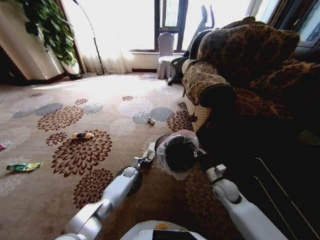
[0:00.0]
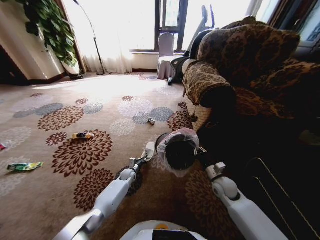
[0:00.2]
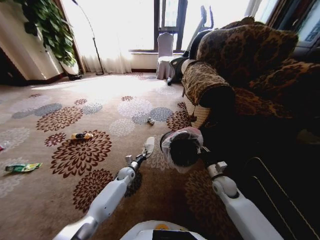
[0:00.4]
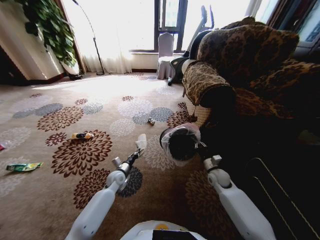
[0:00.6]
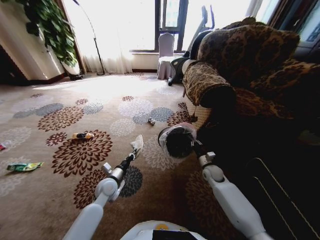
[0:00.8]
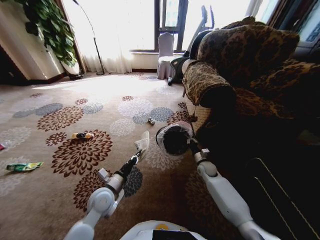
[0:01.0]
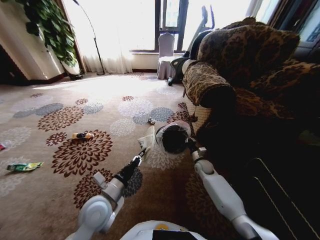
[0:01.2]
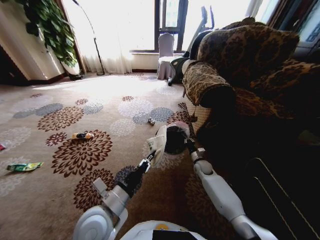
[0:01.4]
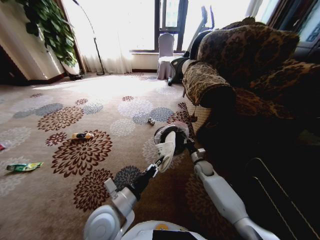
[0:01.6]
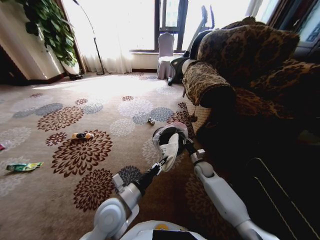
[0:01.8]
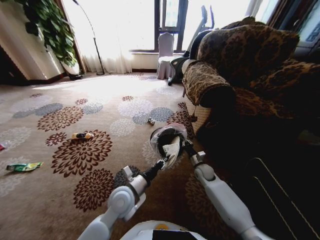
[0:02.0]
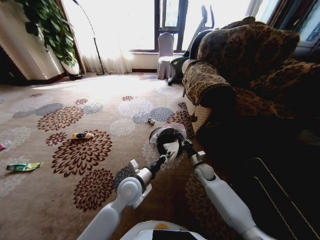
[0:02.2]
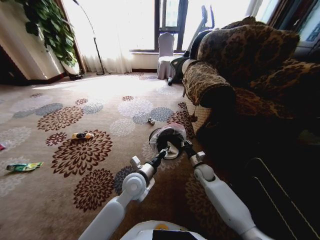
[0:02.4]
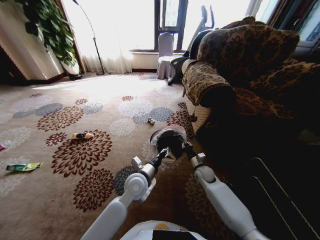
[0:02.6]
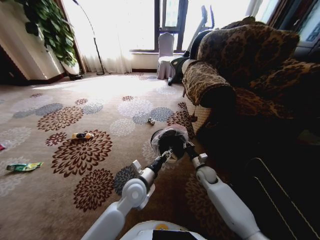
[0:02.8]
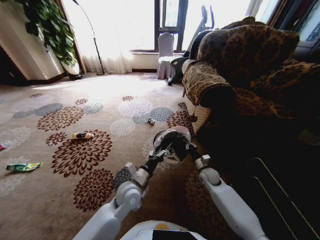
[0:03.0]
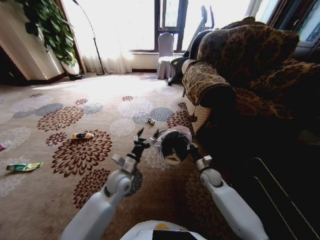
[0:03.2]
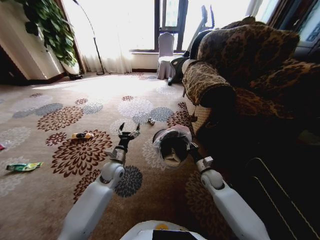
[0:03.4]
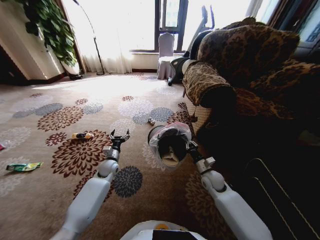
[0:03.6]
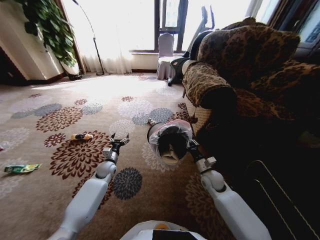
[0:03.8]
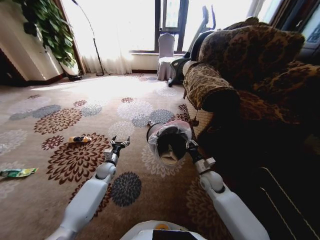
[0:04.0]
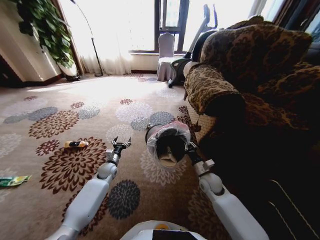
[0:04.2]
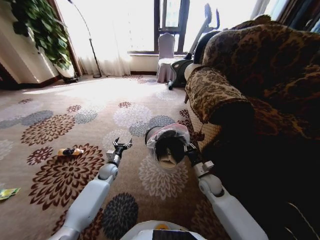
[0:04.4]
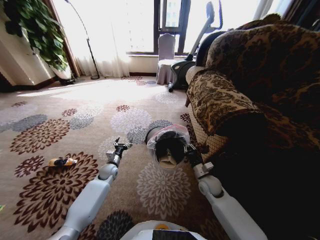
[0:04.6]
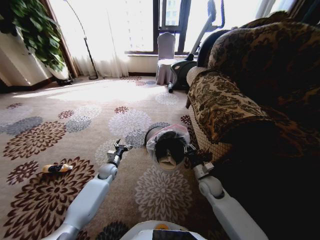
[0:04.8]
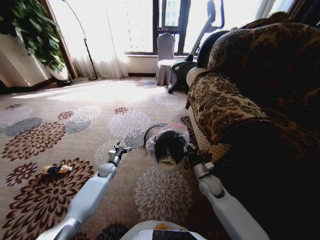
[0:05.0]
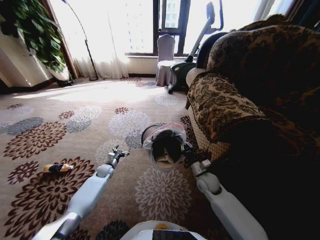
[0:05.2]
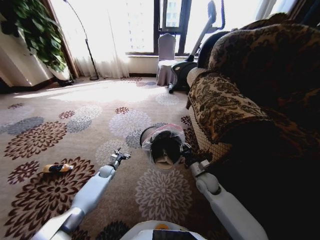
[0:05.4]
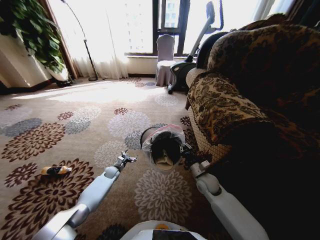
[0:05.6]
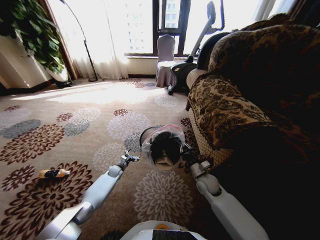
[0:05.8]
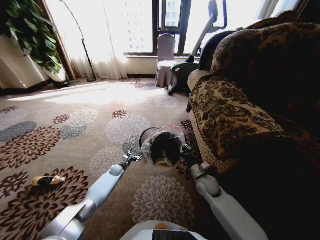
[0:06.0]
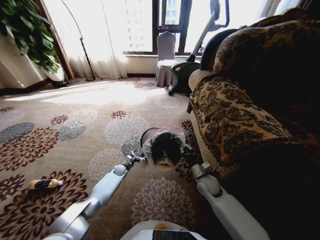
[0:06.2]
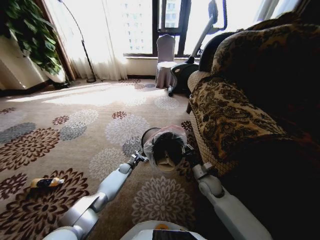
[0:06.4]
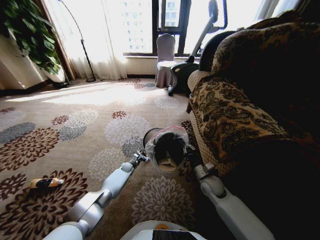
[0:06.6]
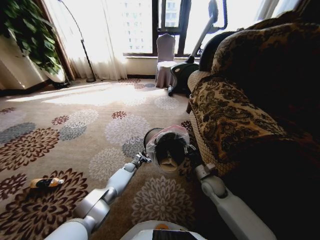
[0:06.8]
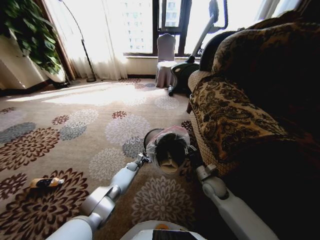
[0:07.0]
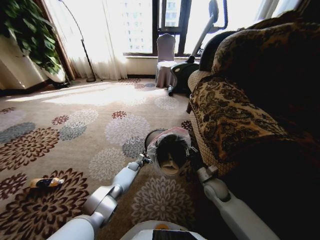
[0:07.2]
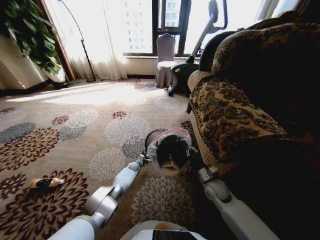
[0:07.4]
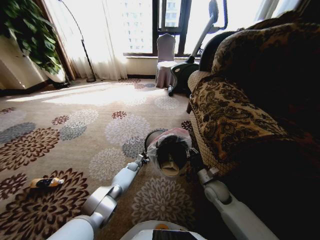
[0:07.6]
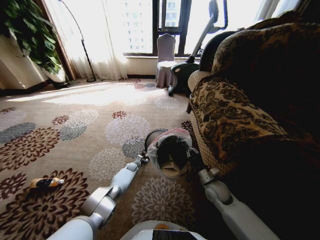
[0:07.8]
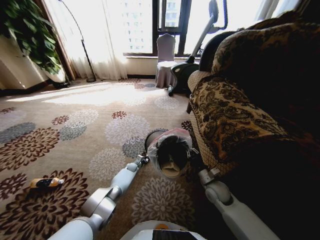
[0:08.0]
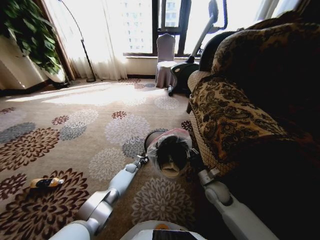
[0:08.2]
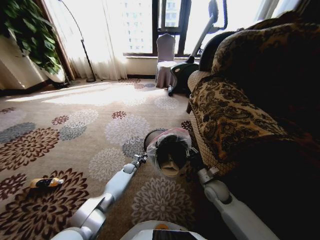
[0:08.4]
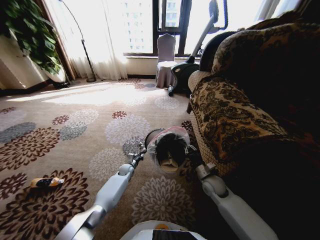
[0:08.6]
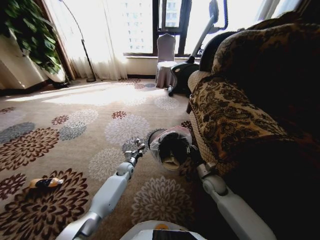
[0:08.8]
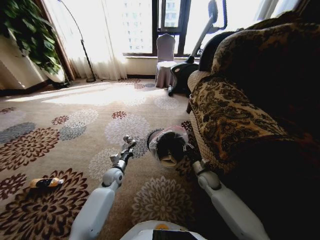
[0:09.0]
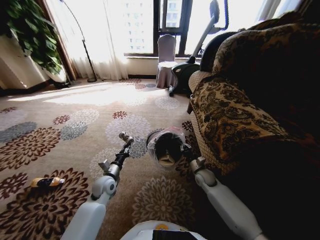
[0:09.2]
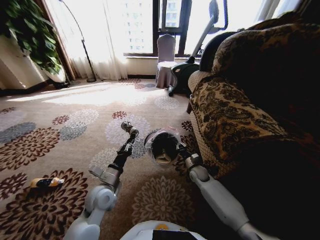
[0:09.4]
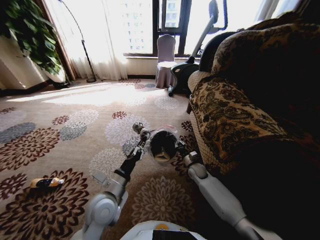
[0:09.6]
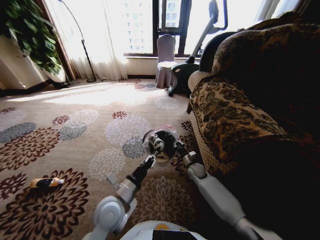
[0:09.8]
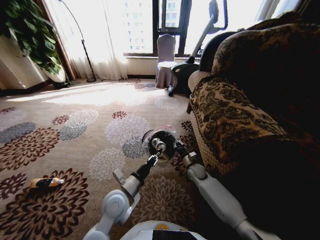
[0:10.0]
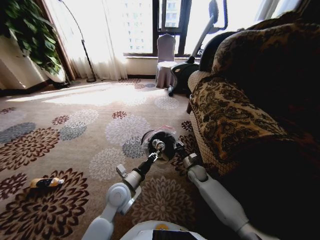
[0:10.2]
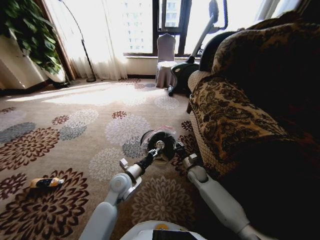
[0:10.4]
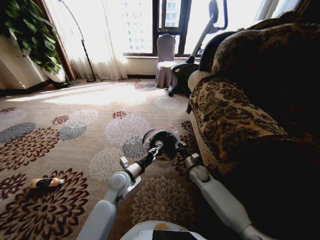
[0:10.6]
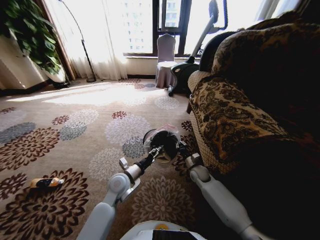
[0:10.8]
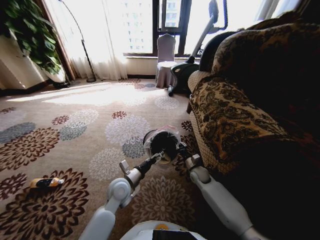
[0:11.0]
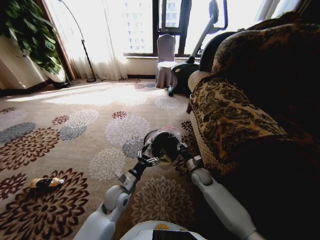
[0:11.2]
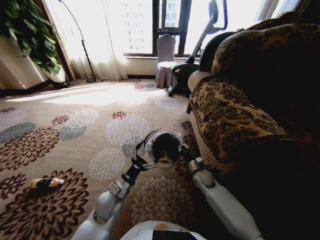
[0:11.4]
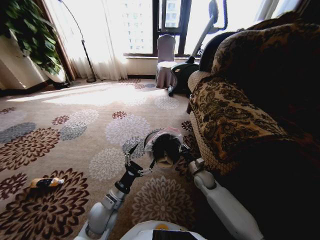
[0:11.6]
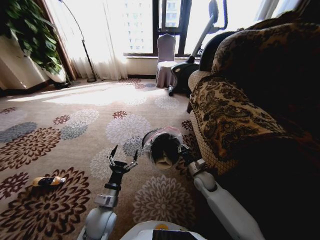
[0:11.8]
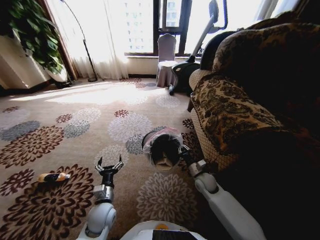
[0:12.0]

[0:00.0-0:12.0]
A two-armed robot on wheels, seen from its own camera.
Task of the whole recording: Pick up the trash from the ground and place it into the trash bin.
0:00.0 to 0:01.6: The left gripper moves upward and backward, about 40 cm. The right gripper moves forward and downward, some 15 cm.
0:01.6 to 0:03.0: The right gripper goes about 5 cm backward. Meanwhile the left gripper heads forward and downward, covering approximately 10 cm, and opens its fingers.
0:03.0 to 0:04.4: The left gripper travels to the left, forward and downward by some 25 cm, while the right gripper travels backward by some 5 cm.
0:04.4 to 0:06.0: The left gripper moves downward and forward, roughly 10 cm.
0:06.0 to 0:07.6: The left gripper heads to the right, covering about 10 cm, and closes up.
0:07.6 to 0:09.0: The left gripper moves upward and backward, about 20 cm, and closes, while the right gripper shifts some 5 cm forward.
0:09.0 to 0:10.4: The left gripper travels upward, to the right and backward by roughly 15 cm. The right gripper changes place by about 5 cm.
0:10.4 to 0:12.0: The left gripper travels backward, to the left and downward by about 15 cm, and opens; the right gripper moves backward, roughly 5 cm.

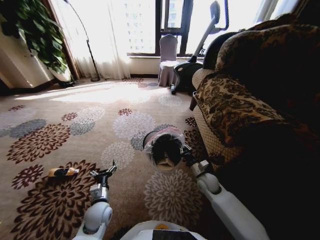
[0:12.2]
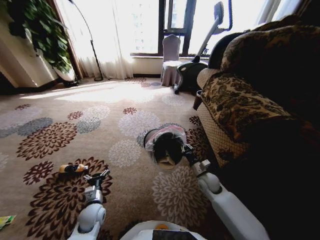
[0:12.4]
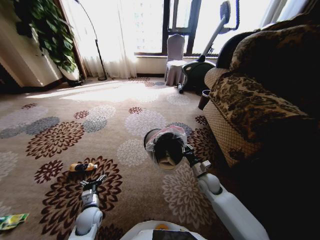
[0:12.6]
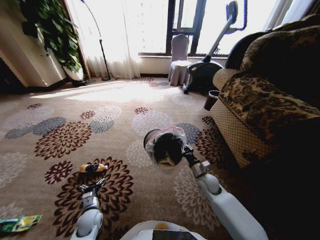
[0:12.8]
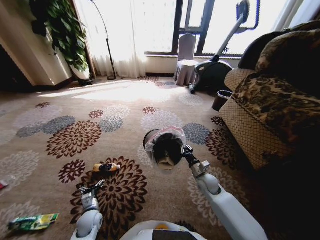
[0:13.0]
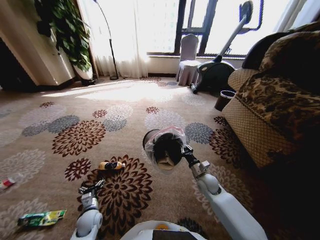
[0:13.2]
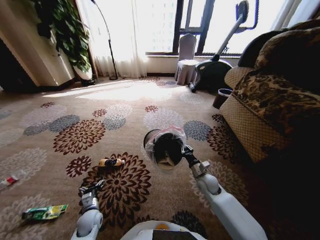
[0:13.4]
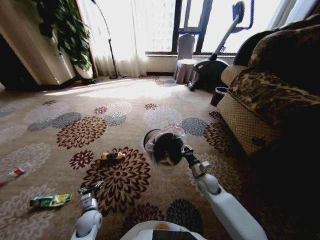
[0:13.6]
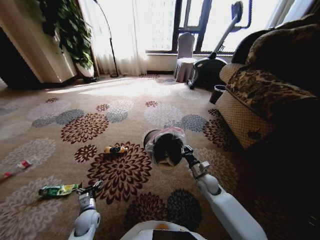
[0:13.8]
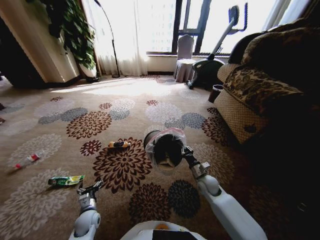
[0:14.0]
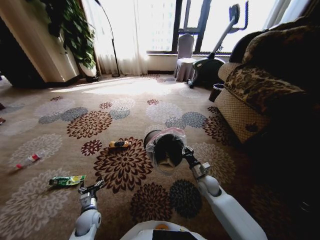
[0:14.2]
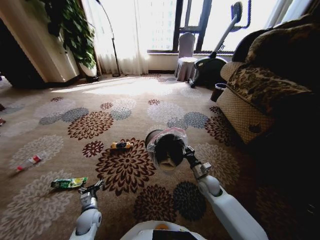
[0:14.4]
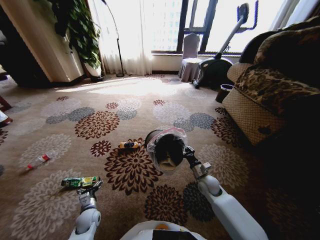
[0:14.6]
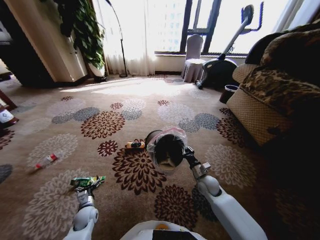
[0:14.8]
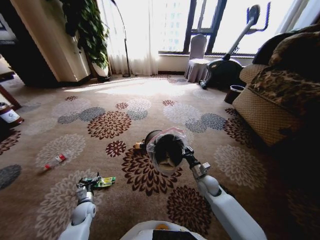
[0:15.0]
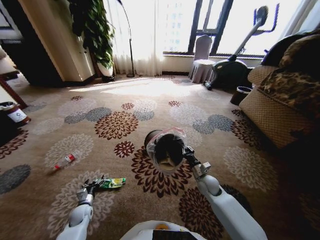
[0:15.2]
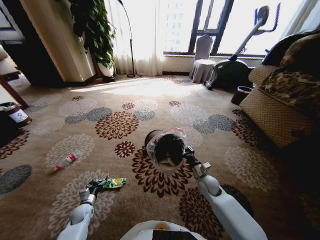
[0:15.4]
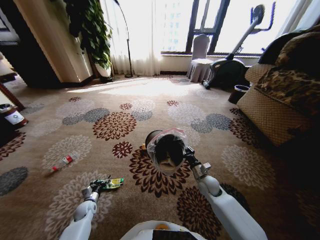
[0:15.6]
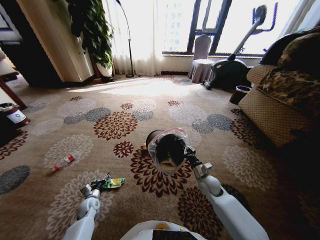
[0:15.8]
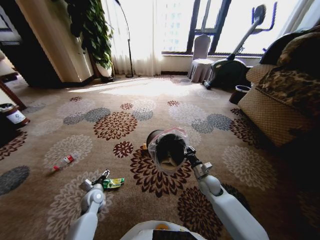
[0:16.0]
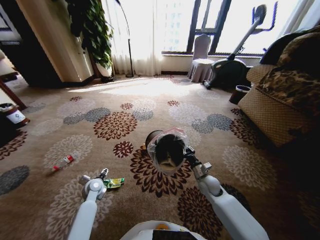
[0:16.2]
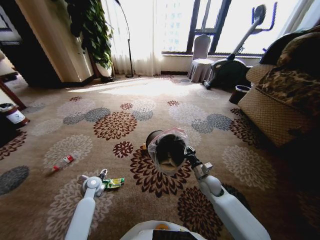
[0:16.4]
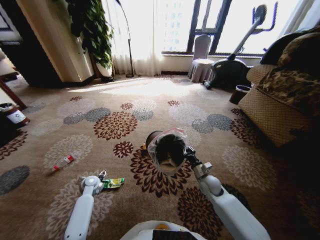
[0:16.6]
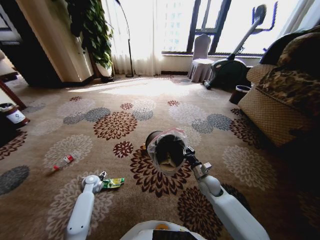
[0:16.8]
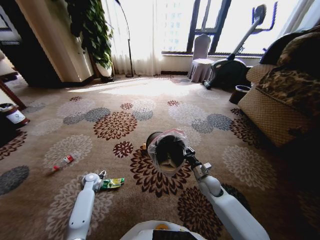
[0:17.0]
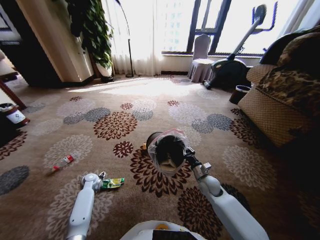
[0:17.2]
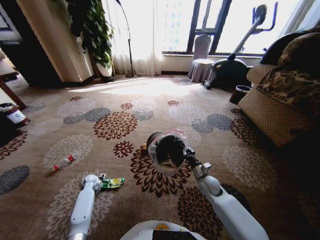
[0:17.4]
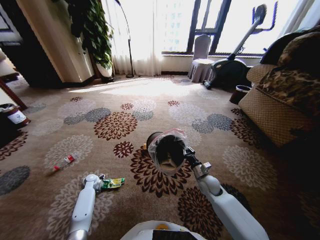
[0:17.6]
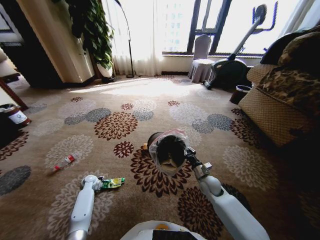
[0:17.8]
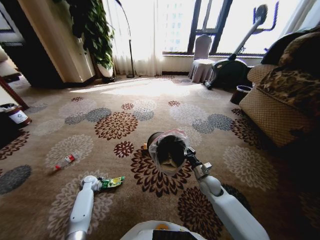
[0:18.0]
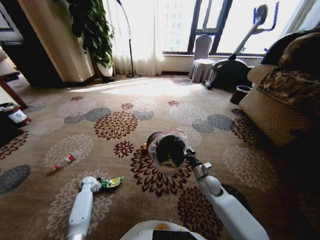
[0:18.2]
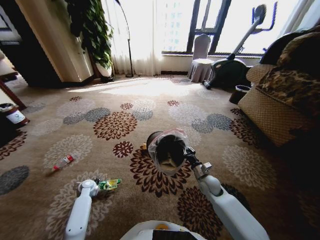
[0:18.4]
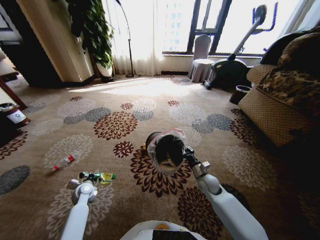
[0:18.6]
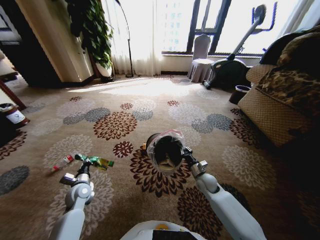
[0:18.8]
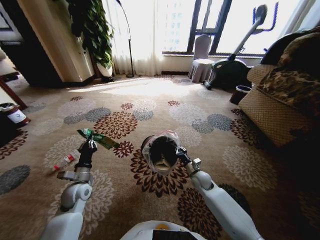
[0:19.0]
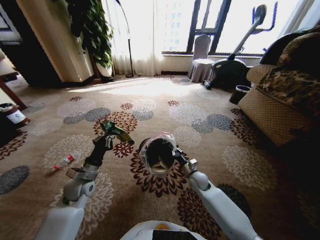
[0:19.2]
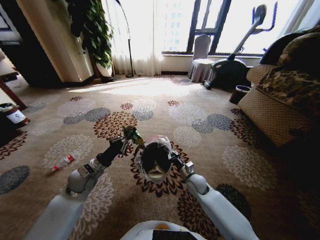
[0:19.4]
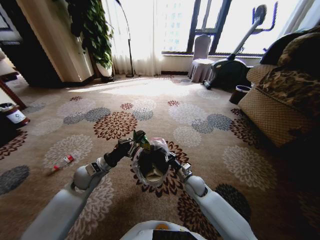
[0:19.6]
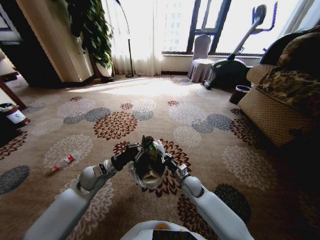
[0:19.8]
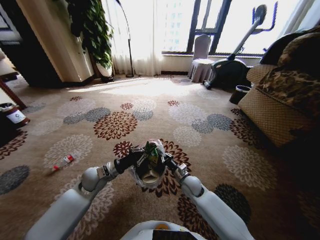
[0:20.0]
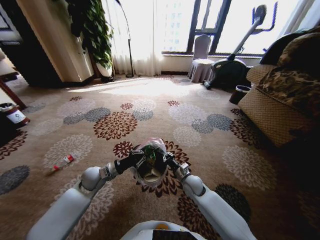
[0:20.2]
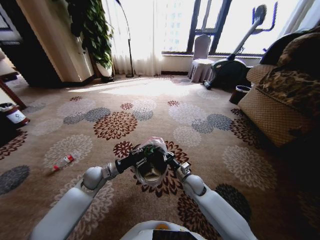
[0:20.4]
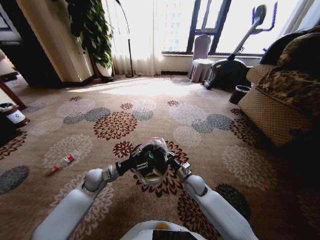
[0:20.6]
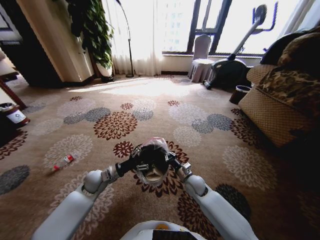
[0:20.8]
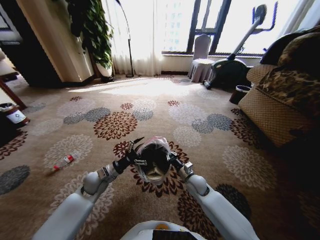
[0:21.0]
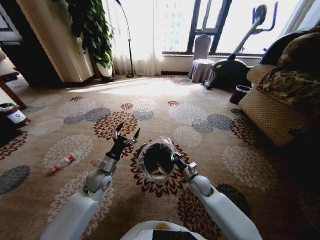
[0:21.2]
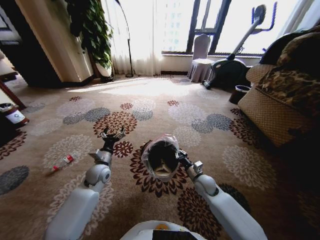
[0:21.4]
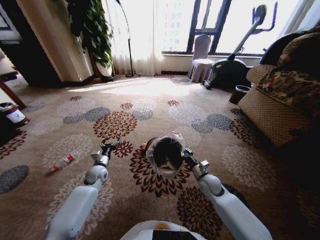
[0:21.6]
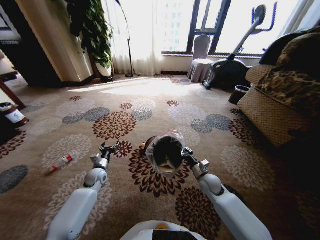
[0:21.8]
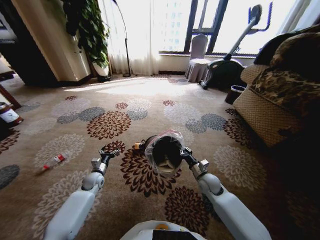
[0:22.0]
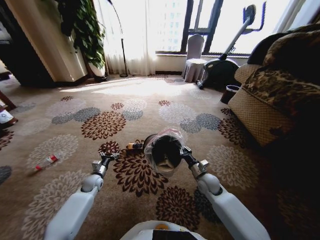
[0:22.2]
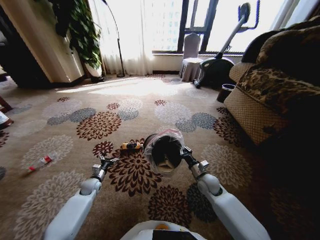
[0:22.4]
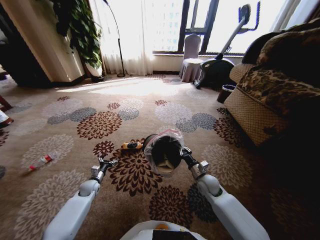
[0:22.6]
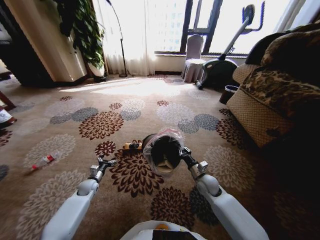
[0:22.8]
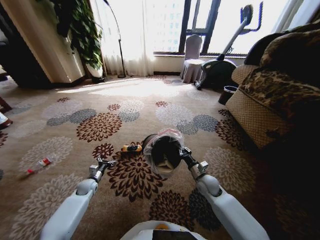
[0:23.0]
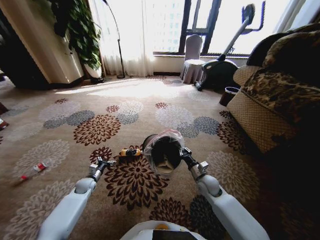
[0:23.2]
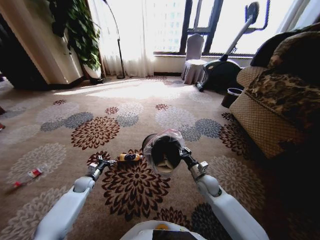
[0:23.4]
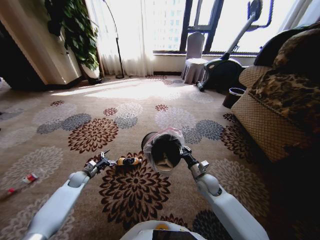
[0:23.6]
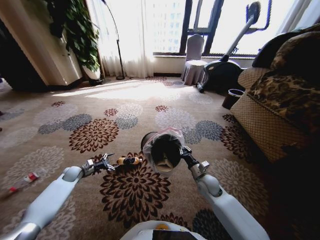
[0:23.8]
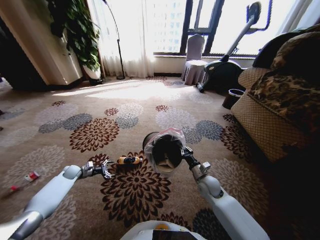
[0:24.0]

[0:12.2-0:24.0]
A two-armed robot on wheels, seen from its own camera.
Task of the whole recording: Pick up the trash from the ground and place it into the trash bin.
0:12.2 to 0:13.6: The left gripper goes roughly 10 cm downward and to the left.
0:13.6 to 0:15.2: The left gripper travels to the left by approximately 10 cm.
0:15.2 to 0:16.6: The left gripper is displaced forward and upward by approximately 15 cm.
0:16.6 to 0:18.2: The left gripper heads downward and to the left, covering approximately 10 cm, and closes up.
0:18.2 to 0:19.6: The right gripper is displaced to the left by roughly 5 cm. The left gripper heads upward and to the right, covering about 25 cm, and closes its fingers.
0:19.6 to 0:21.0: The left gripper heads downward, covering some 5 cm, and opens its fingers.
0:21.0 to 0:22.6: The right gripper goes some 5 cm to the right; the left gripper is displaced downward and to the left by some 20 cm.
0:22.6 to 0:24.0: The left gripper travels to the left and forward by some 15 cm.
